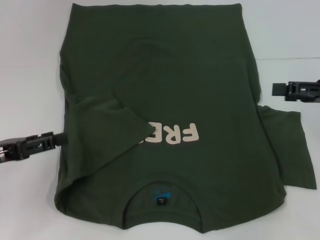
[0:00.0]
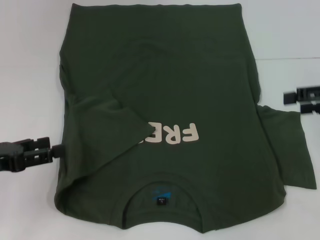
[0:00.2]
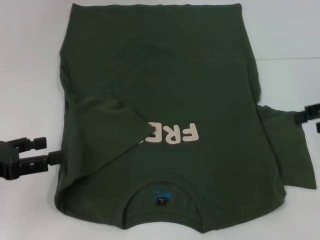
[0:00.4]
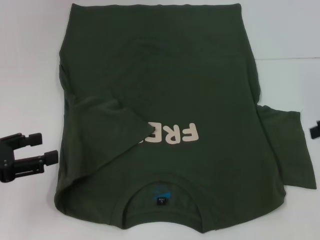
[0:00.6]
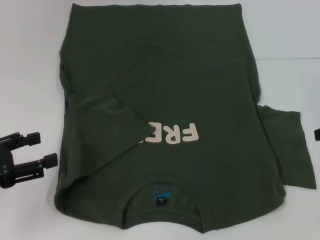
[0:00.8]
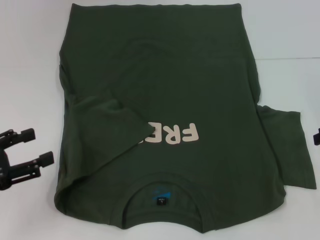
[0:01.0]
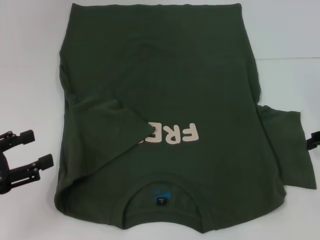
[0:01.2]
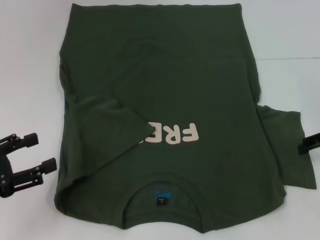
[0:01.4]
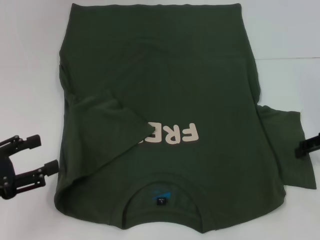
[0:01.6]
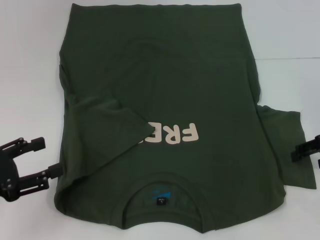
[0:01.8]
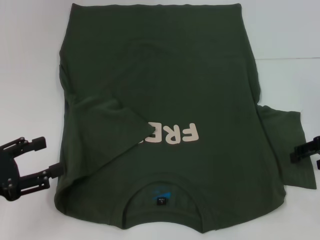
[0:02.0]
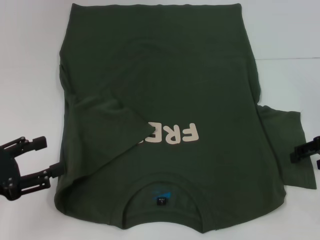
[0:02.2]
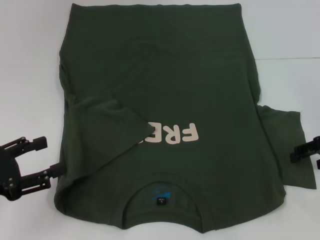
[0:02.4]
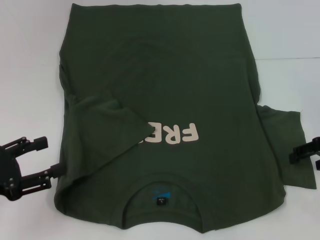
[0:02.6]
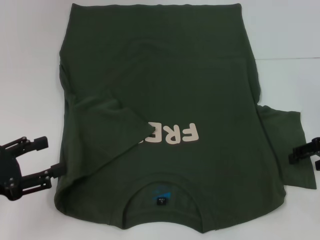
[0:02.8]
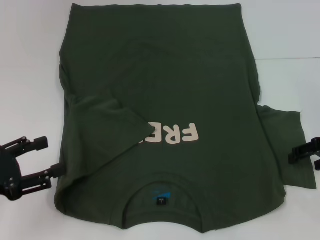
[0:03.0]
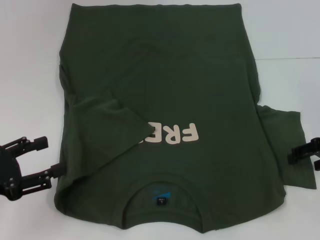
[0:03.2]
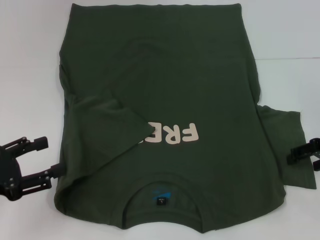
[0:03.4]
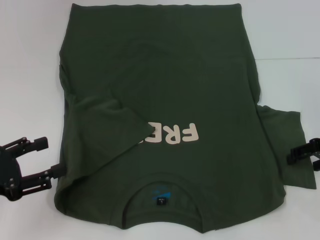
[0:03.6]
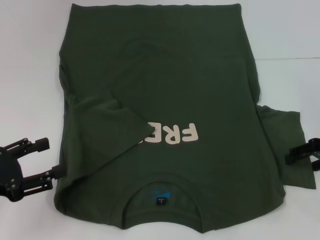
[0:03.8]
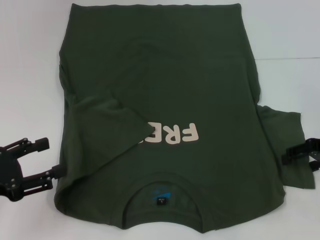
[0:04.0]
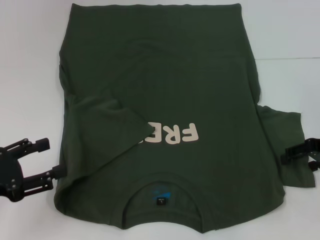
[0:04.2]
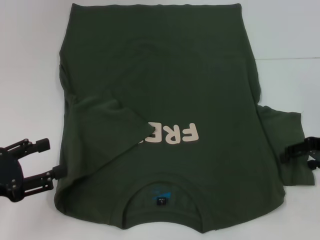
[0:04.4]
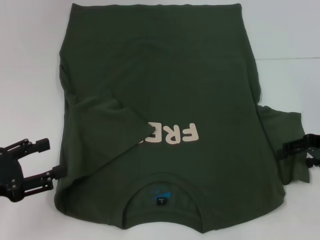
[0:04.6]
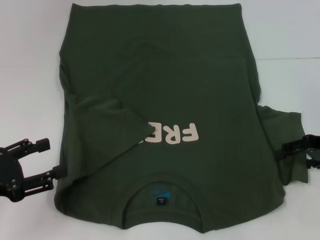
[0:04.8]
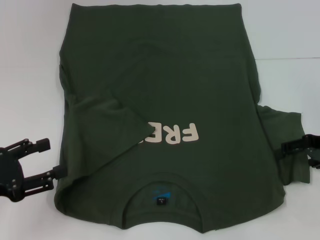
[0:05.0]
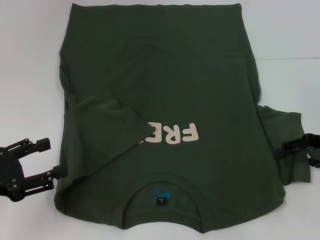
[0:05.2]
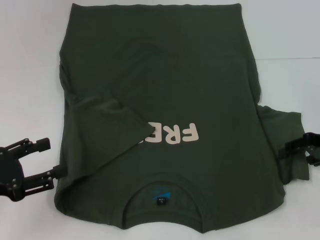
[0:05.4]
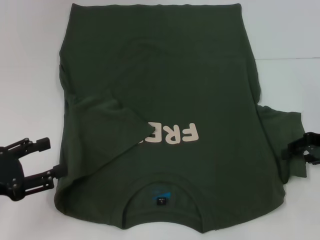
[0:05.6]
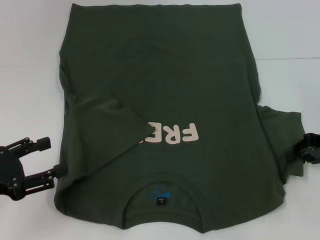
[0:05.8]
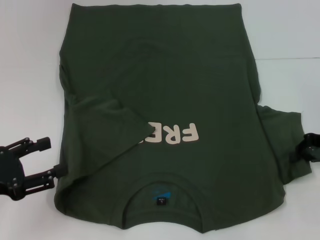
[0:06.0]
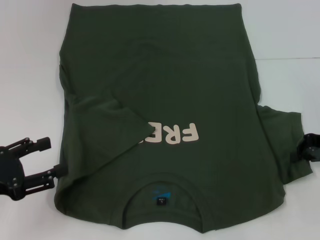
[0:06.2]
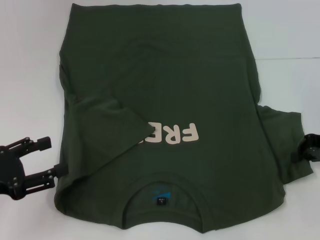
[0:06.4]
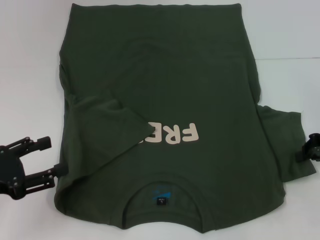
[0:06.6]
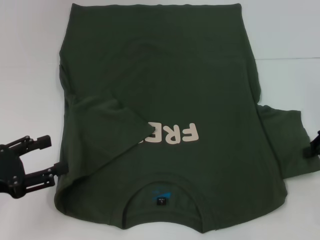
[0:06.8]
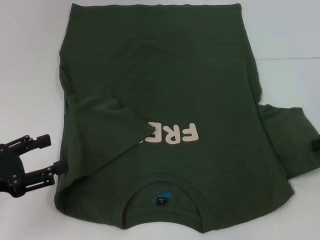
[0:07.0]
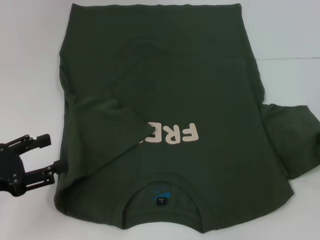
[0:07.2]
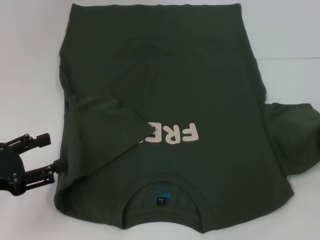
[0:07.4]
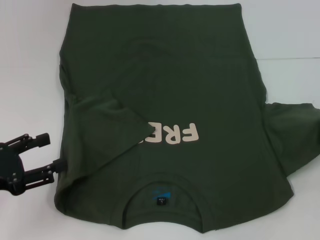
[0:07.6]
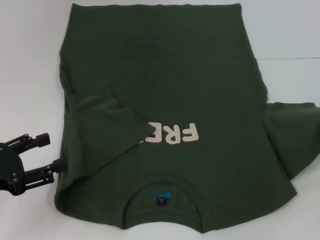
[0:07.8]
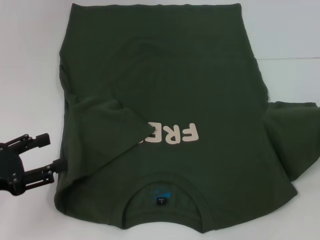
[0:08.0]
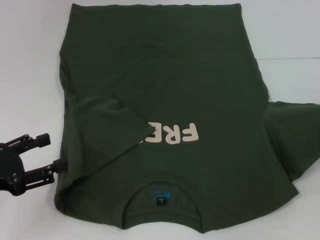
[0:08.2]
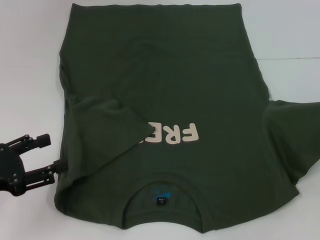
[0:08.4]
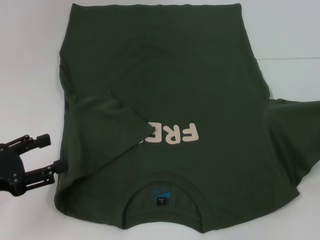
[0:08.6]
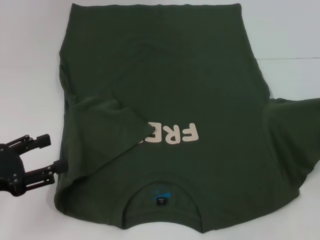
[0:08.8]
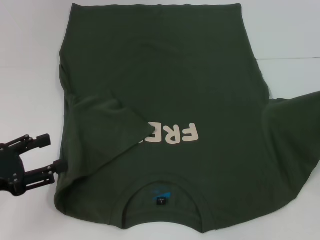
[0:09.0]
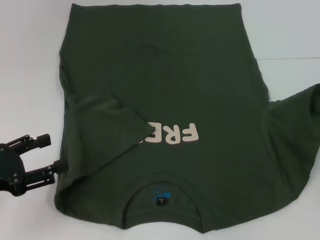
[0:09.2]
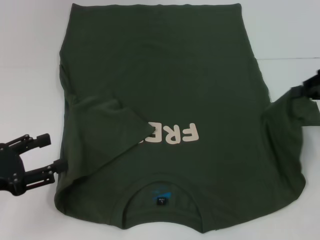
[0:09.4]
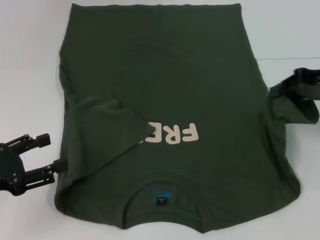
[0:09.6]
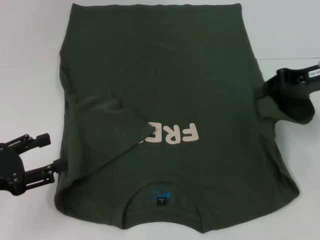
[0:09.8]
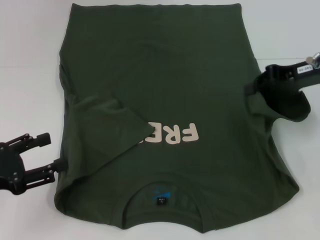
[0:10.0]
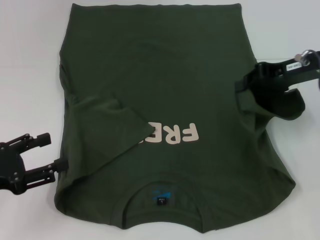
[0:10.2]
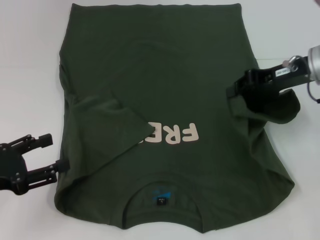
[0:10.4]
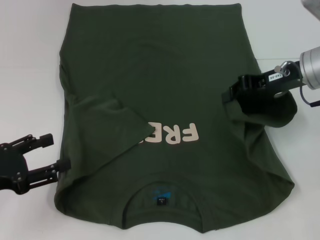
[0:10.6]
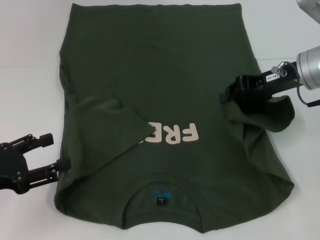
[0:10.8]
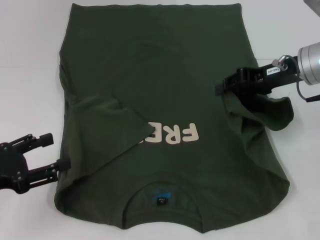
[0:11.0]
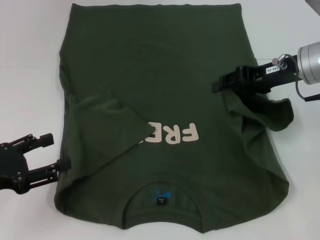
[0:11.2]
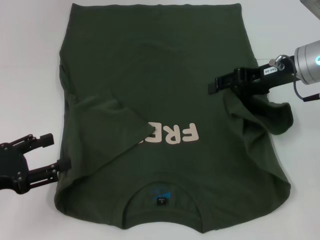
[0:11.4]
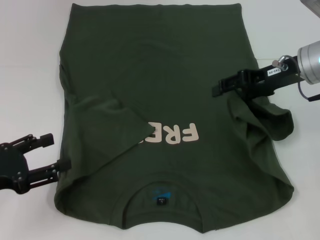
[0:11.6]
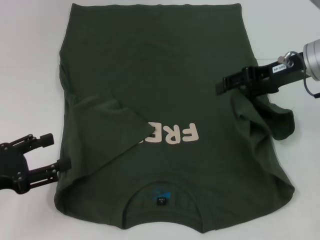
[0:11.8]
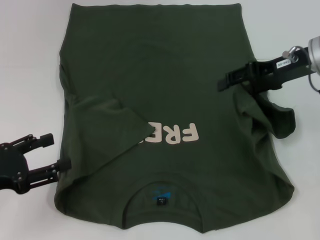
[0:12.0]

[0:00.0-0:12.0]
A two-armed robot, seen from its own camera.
0:00.0 to 0:01.6: The right gripper moves roughly 5 cm.
0:01.6 to 0:03.0: The grippers move only a little.
0:03.0 to 0:04.4: The two grippers keep their place.
0:04.4 to 0:06.0: The right gripper closes.
0:06.0 to 0:07.6: The right gripper goes roughly 5 cm to the right.
0:07.6 to 0:09.0: The grippers move only a little.
0:09.0 to 0:10.4: The right gripper goes roughly 15 cm to the left.
0:10.4 to 0:12.0: The right gripper opens.

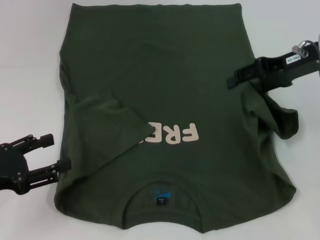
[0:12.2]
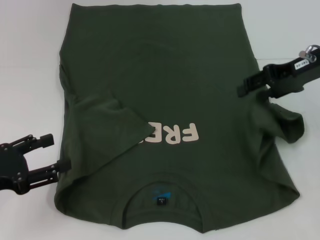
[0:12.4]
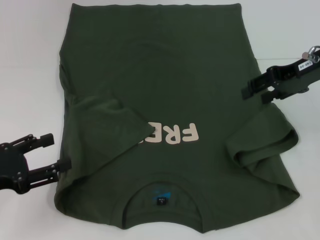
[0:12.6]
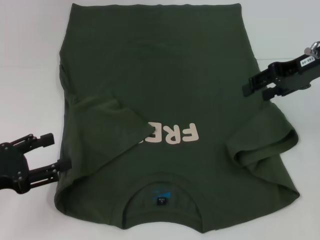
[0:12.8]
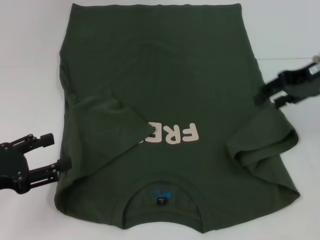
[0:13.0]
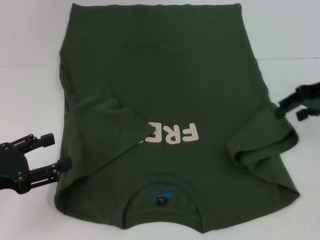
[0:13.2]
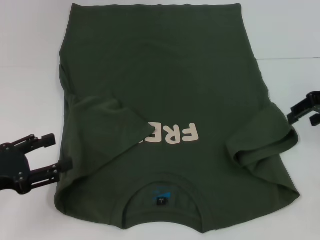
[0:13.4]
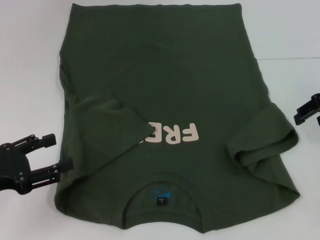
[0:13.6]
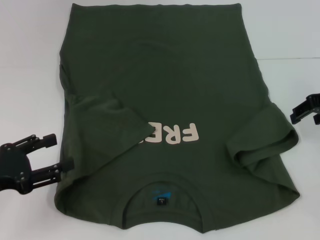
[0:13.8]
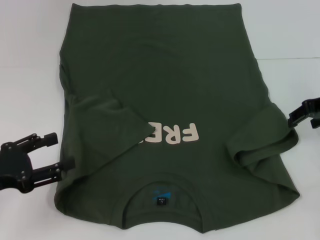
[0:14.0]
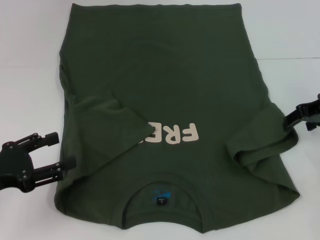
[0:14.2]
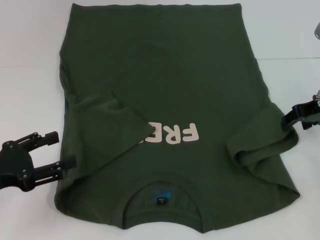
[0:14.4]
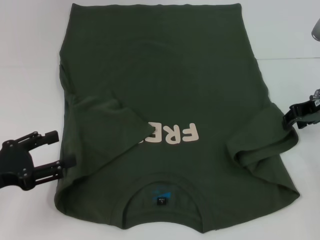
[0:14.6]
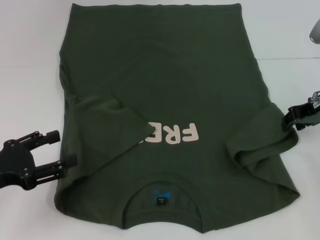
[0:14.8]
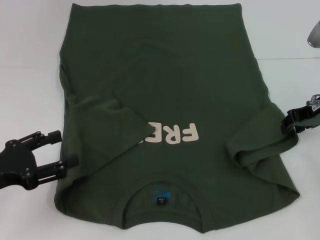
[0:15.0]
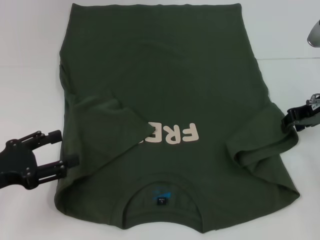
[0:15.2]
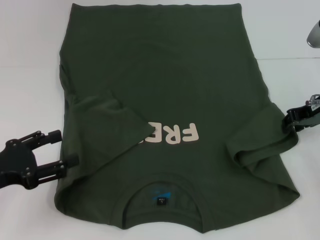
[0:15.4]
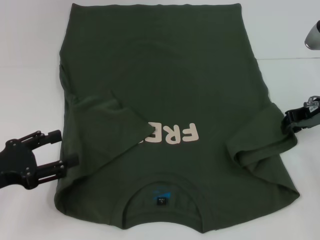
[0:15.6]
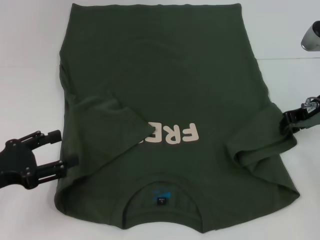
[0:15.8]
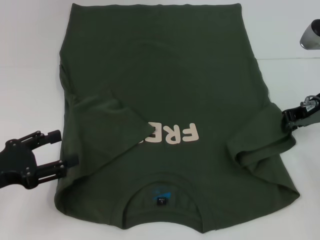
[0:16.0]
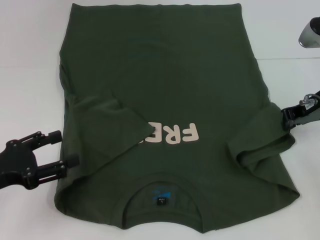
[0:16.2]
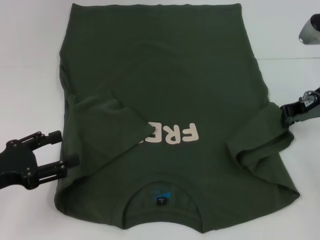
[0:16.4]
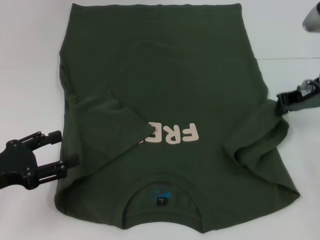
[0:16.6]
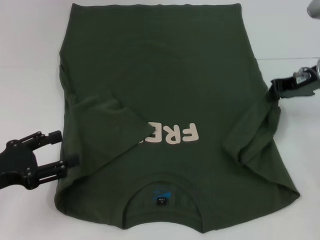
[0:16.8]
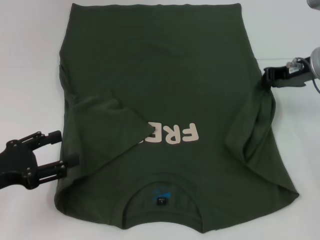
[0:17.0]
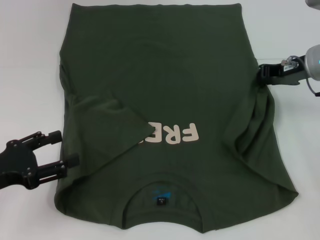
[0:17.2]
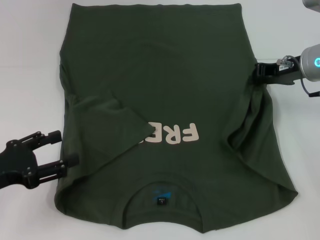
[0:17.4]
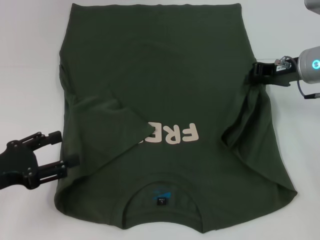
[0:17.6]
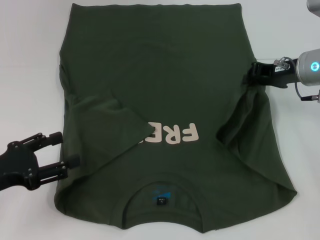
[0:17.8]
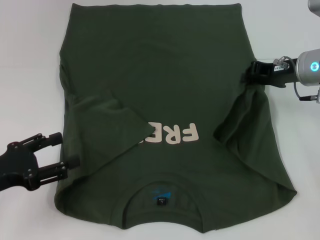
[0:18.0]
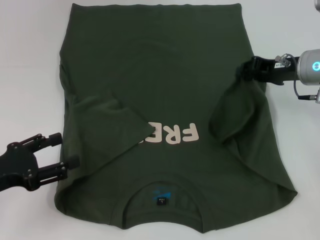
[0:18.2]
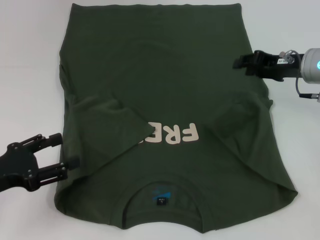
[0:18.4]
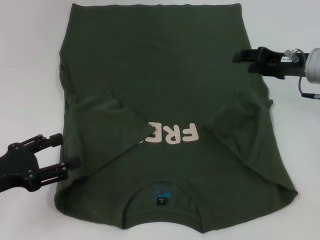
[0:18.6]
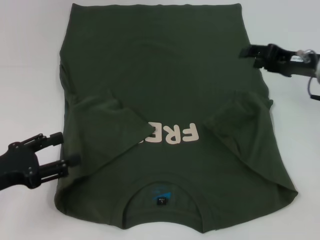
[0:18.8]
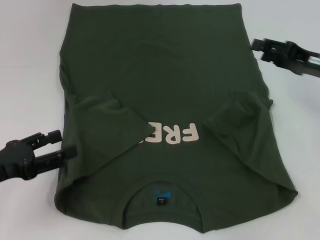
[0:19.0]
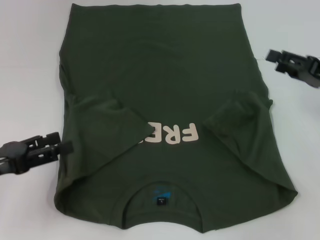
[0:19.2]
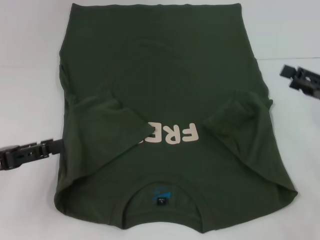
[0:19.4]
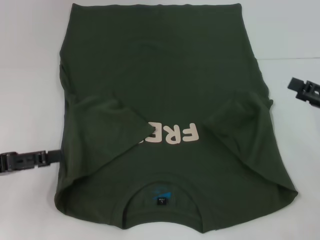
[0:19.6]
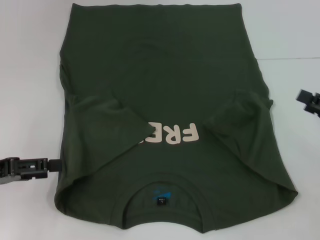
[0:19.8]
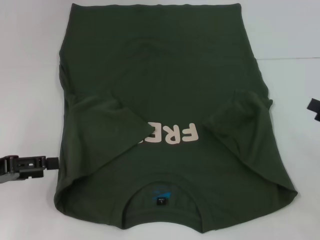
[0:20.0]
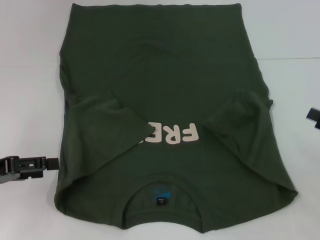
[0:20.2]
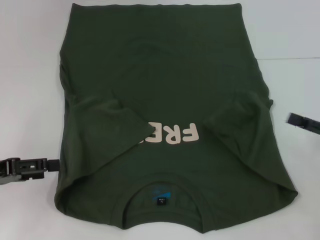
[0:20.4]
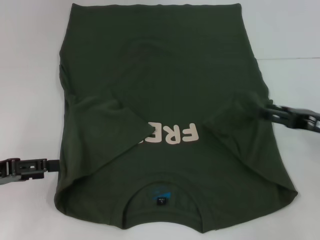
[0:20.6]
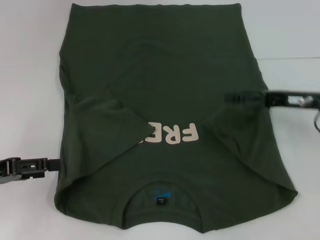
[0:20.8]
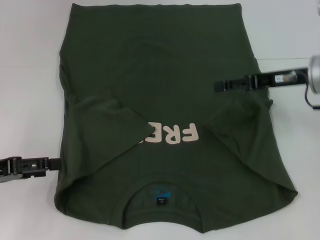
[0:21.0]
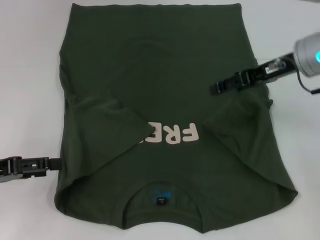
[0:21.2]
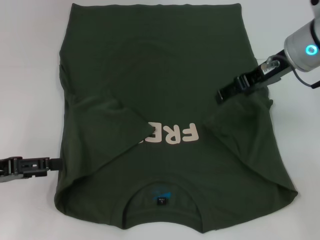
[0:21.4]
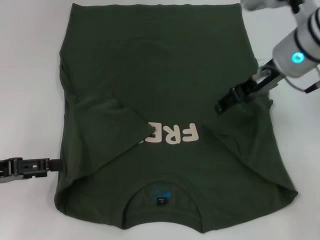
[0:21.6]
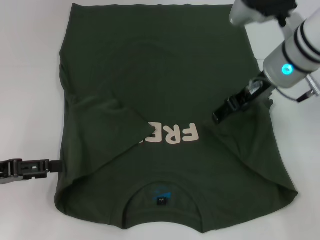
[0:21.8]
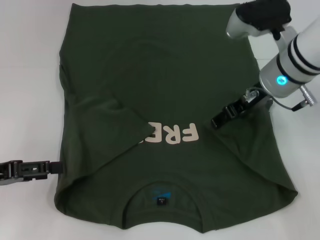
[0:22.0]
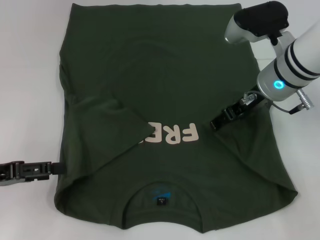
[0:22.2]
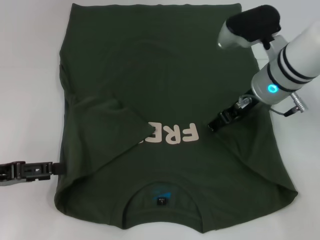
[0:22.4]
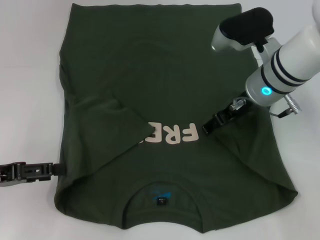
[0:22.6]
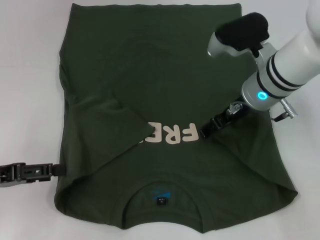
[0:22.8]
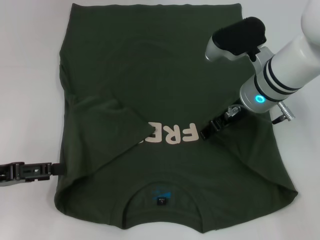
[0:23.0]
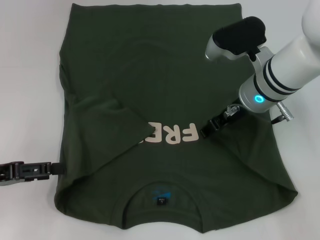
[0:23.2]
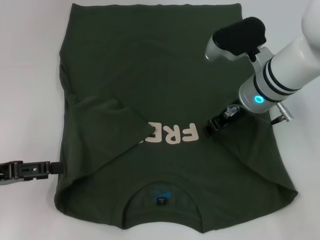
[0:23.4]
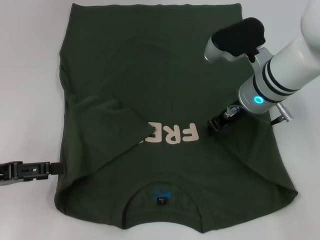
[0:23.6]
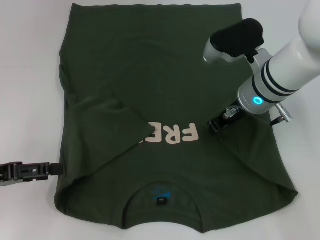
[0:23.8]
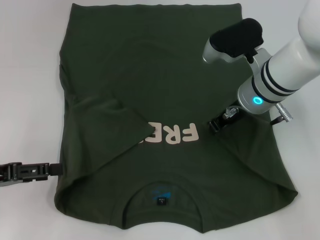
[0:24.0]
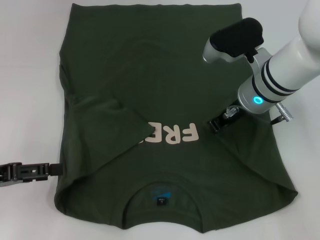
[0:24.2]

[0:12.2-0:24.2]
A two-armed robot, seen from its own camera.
Step, 0:12.2 to 0:19.2: Fold the bottom right sleeve with your right hand.
0:12.2 to 0:13.8: The right gripper ends up approximately 5 cm from where it was.
0:13.8 to 0:15.2: The grippers make only small movements.
0:15.2 to 0:16.6: The right gripper closes.
0:18.2 to 0:19.8: The right gripper moves backward and to the right, some 20 cm, and opens. The left gripper ends up approximately 5 cm from where it was.
0:19.8 to 0:21.2: The right gripper shifts some 20 cm to the left, forward and upward.
0:21.2 to 0:22.6: The right gripper travels to the left by some 5 cm.
0:22.6 to 0:24.2: The right gripper closes its fingers.
